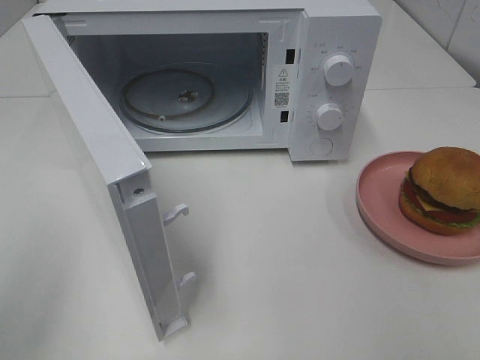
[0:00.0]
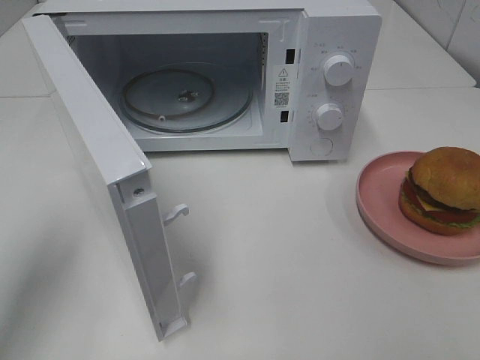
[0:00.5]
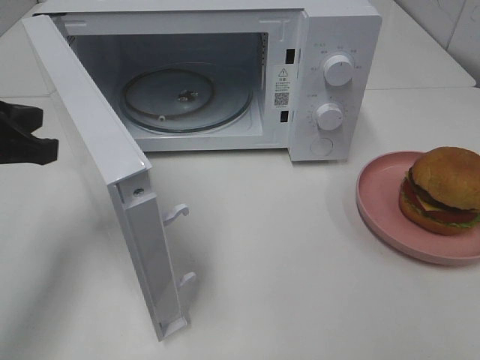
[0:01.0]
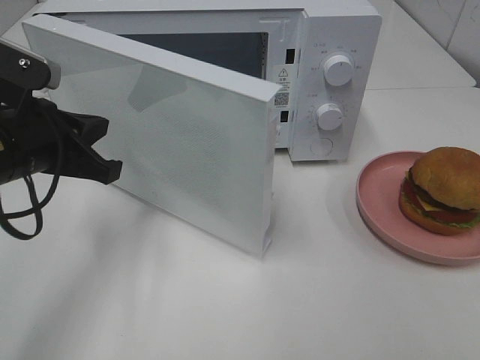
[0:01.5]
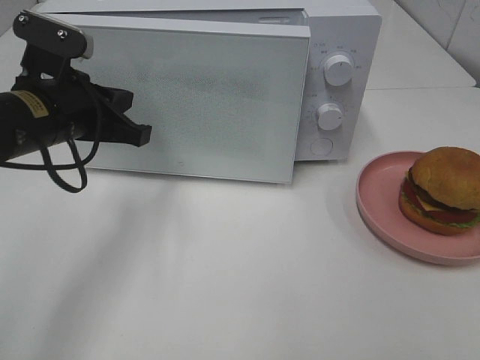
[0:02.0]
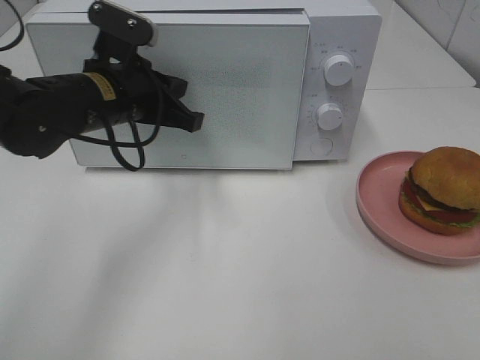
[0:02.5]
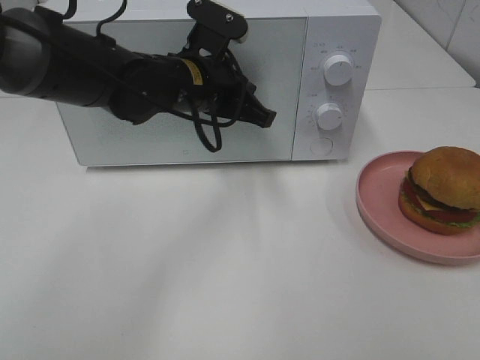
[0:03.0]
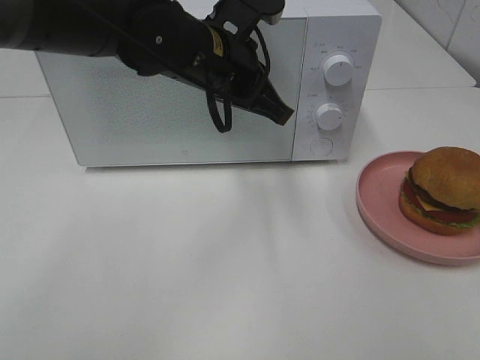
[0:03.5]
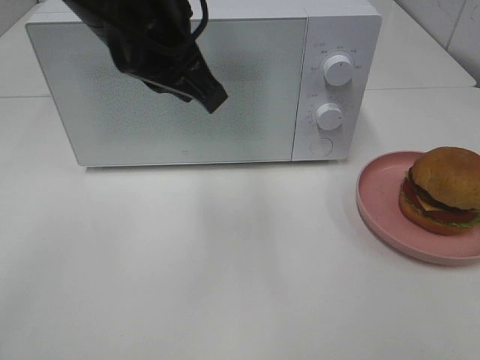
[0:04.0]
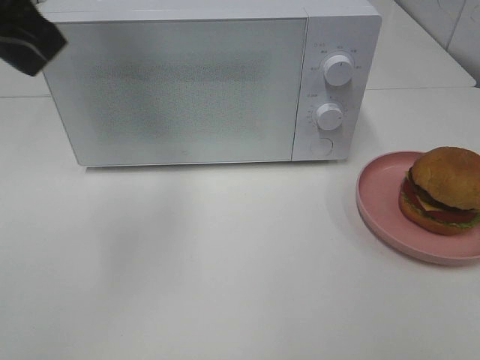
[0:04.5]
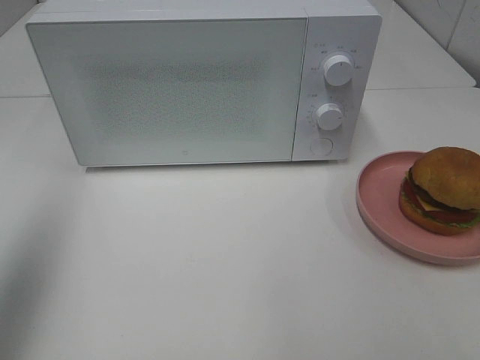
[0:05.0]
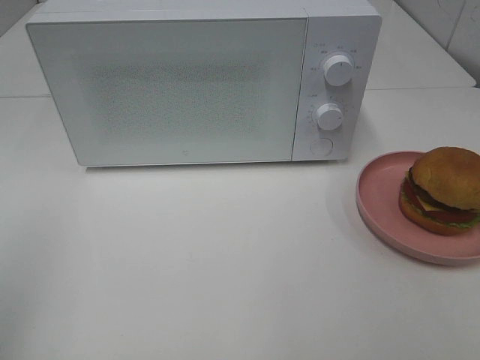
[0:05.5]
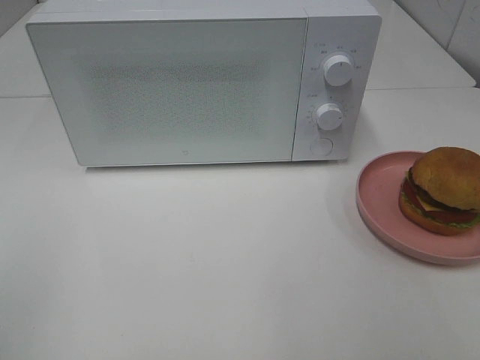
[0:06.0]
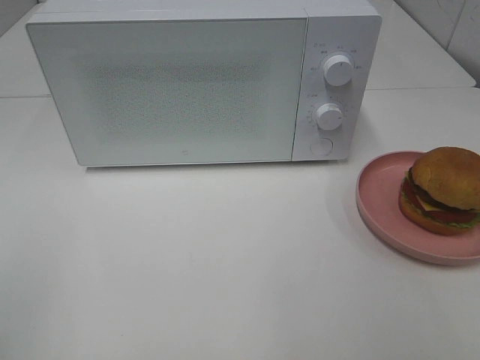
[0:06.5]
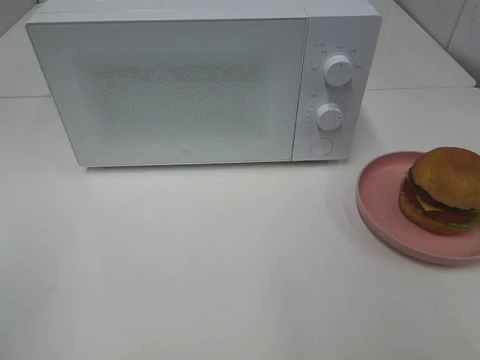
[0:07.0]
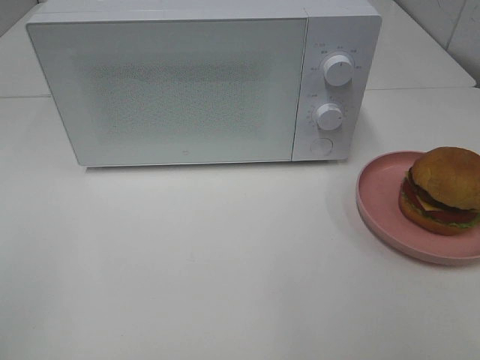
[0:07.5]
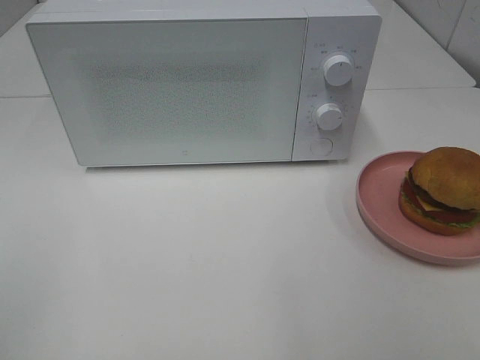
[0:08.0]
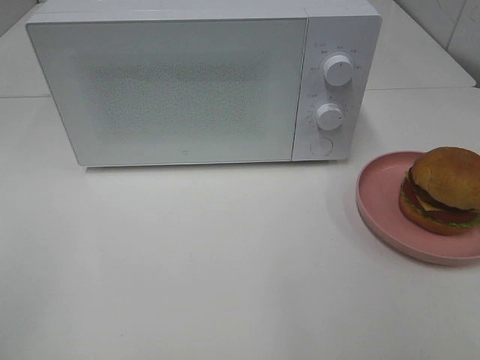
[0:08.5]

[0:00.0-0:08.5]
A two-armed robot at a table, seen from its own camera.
Task of the whole recording: Heat the burger.
Step, 0:00.0 to 0:03.0: Left hand: close the microwave door.
0:00.0 to 0:02.0: The left gripper travels forward, to the right and downward by roughly 30 cm.
0:02.0 to 0:04.0: The left gripper moves upward and to the right, roughly 15 cm.
0:04.0 to 0:06.5: The left gripper travels backward and to the left by about 35 cm.

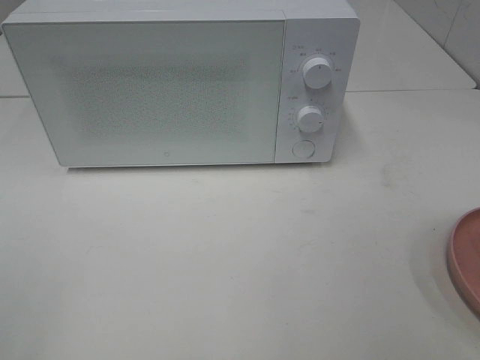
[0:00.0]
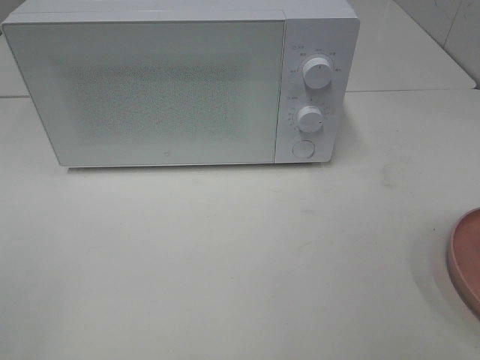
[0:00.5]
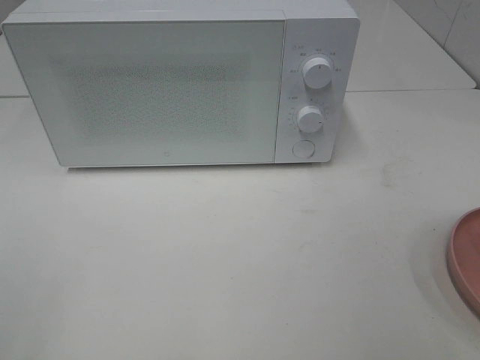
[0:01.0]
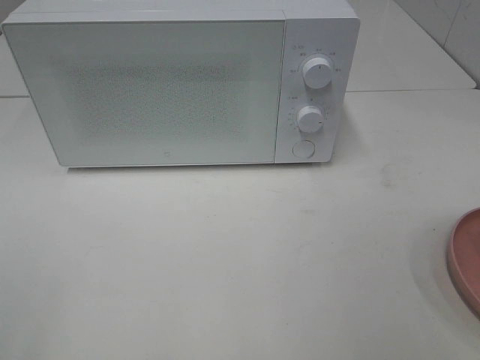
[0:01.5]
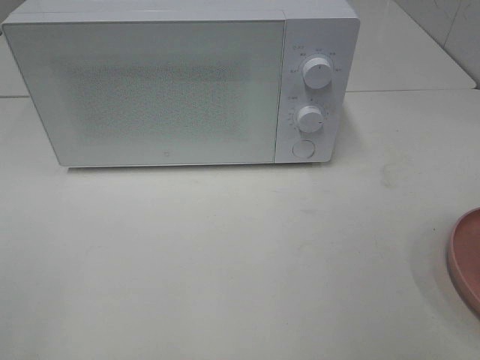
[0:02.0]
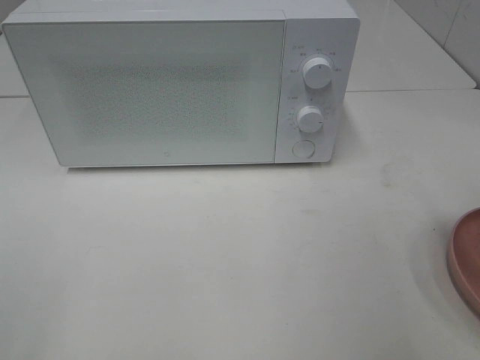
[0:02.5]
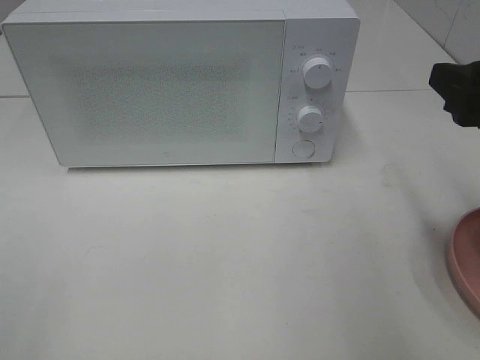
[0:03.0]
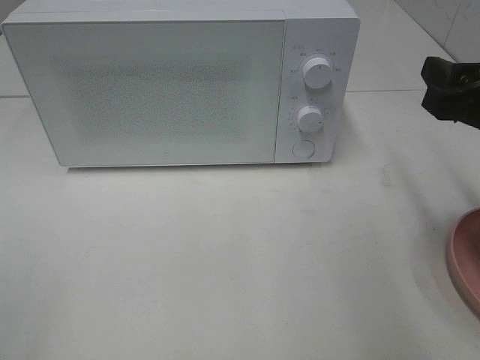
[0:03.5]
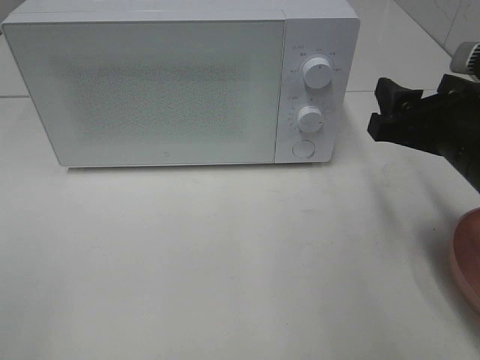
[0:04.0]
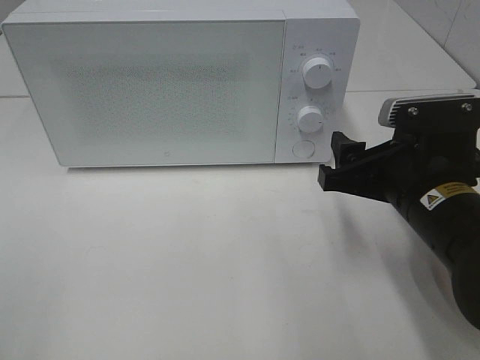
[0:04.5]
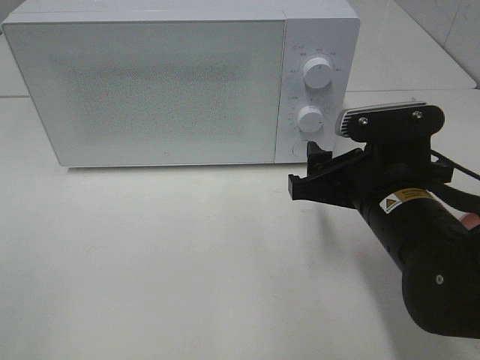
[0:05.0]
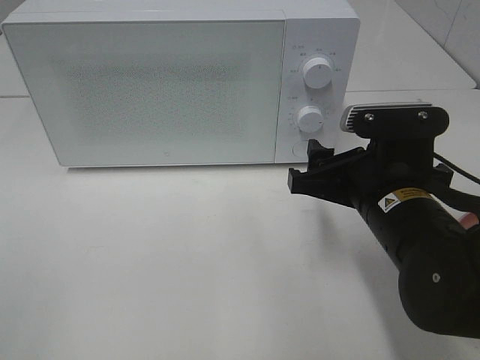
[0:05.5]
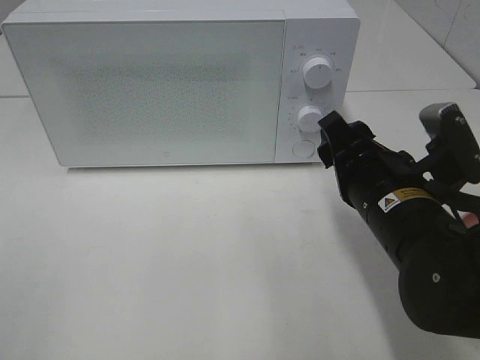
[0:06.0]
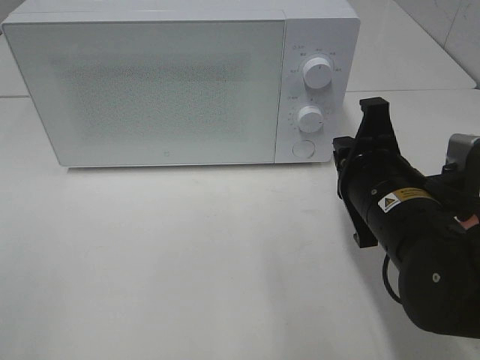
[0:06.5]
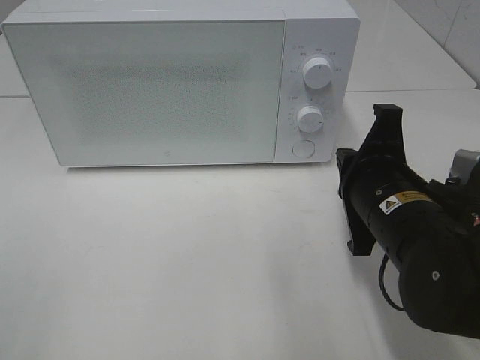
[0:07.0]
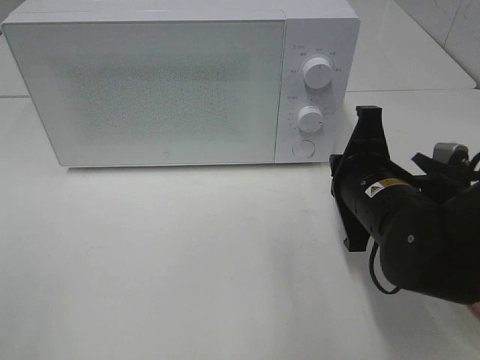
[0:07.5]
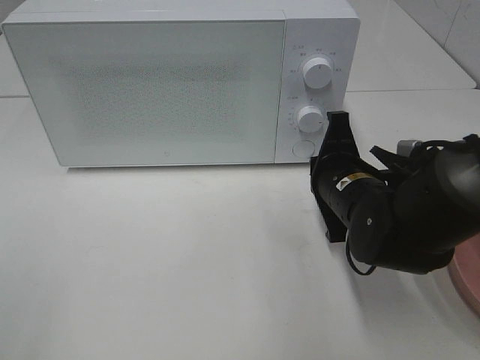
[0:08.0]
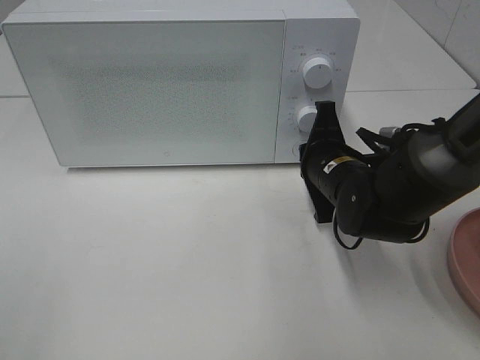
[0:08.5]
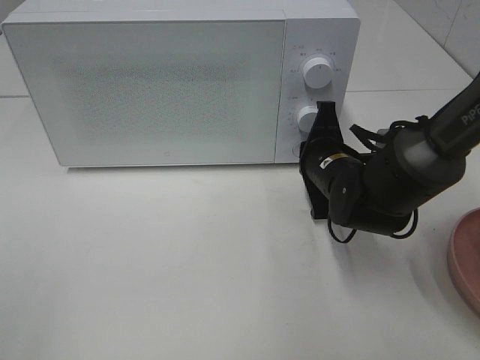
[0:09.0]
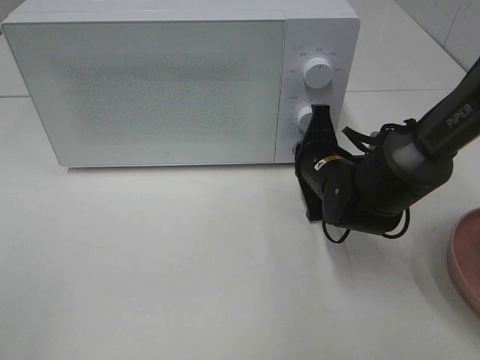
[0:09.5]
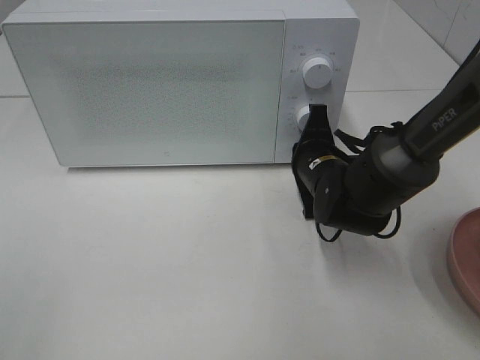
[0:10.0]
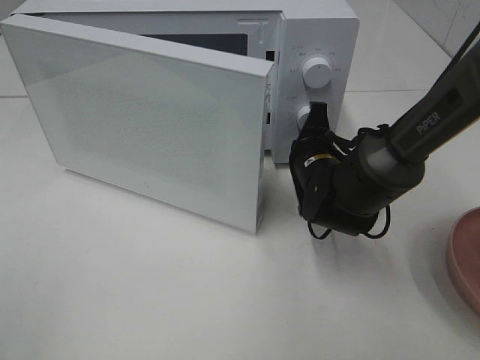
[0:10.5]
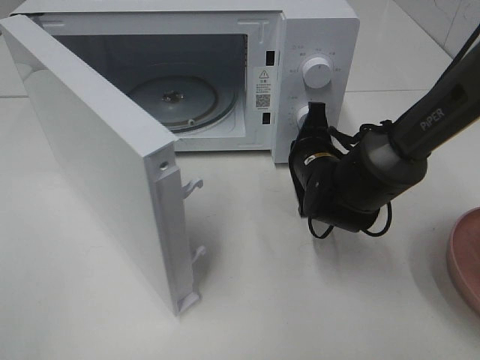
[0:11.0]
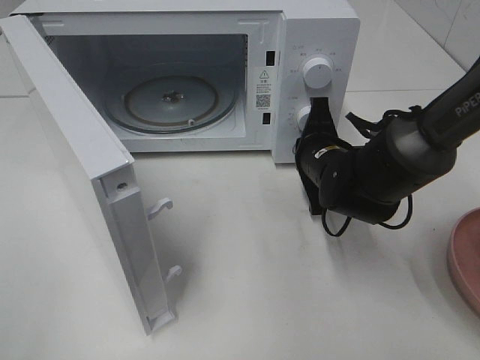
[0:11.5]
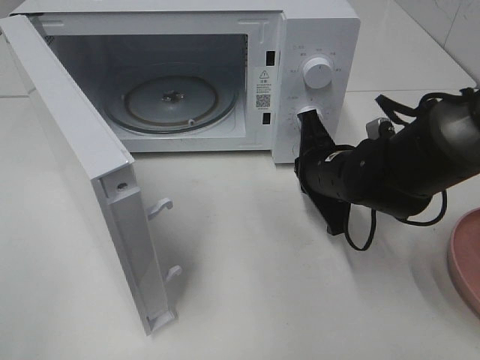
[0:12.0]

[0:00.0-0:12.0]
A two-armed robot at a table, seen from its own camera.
Task of the whole recording: Heat the burger.
0:02.0 to 0:04.0: The right gripper shifts roughly 20 cm forward, downward and to the left.
0:04.0 to 0:06.0: The right gripper shifts approximately 5 cm to the left.
0:06.0 to 0:08.0: The right gripper is displaced forward by approximately 5 cm, and closes its fingers.
0:08.0 to 0:10.0: The right gripper is displaced forward by some 5 cm.

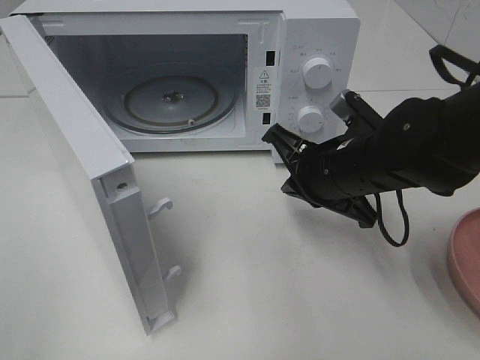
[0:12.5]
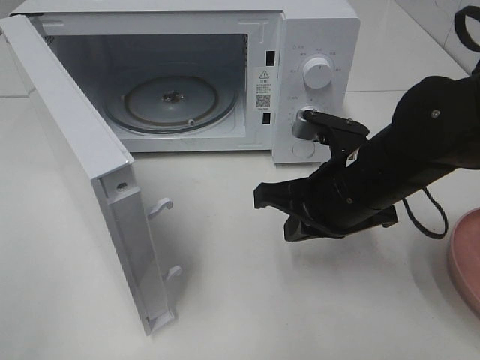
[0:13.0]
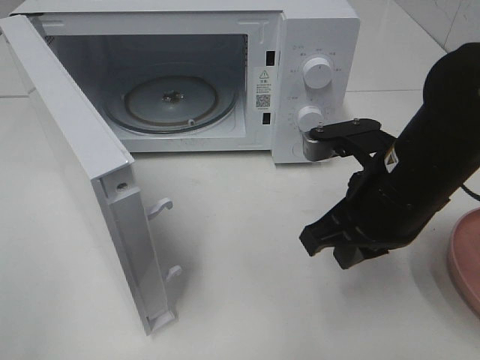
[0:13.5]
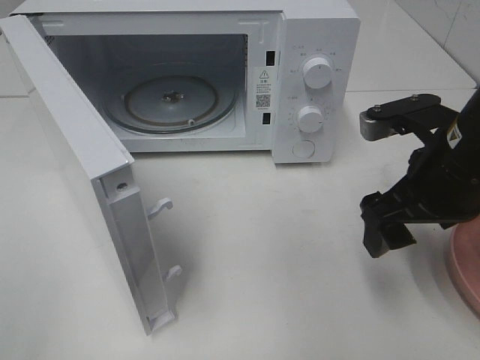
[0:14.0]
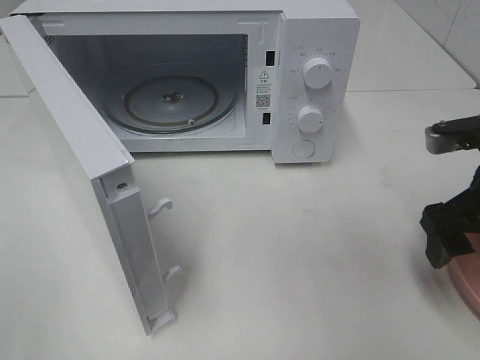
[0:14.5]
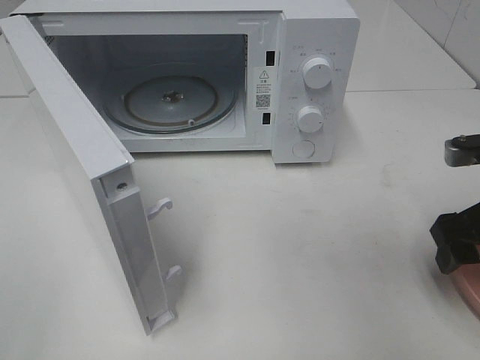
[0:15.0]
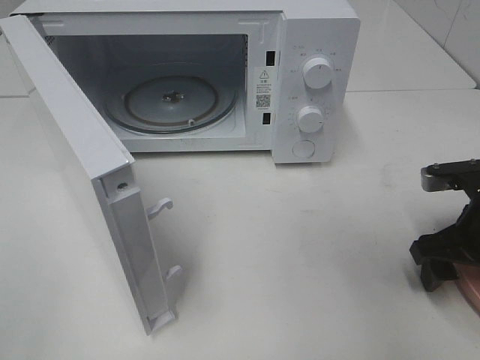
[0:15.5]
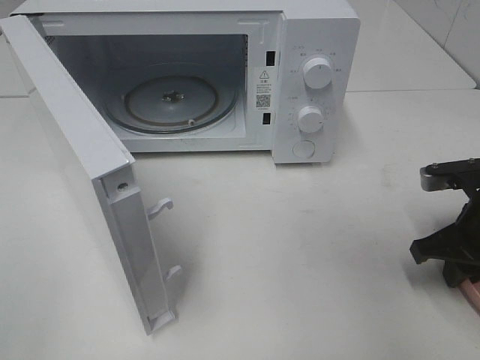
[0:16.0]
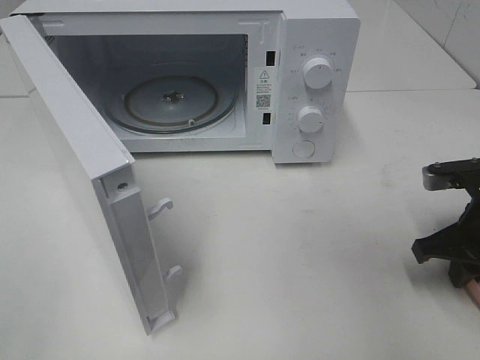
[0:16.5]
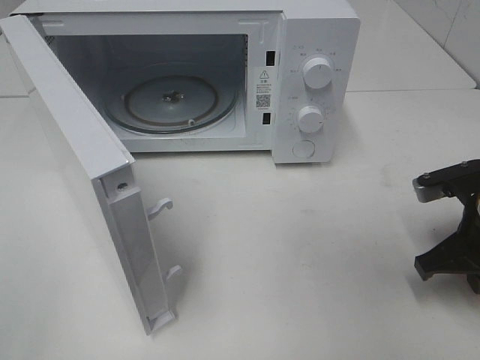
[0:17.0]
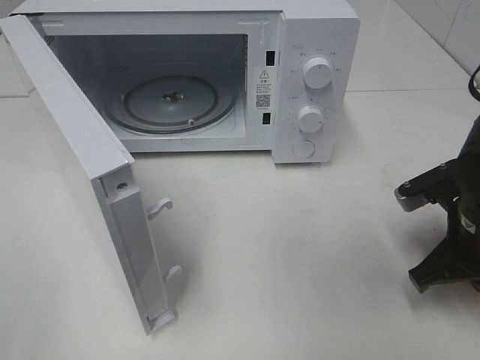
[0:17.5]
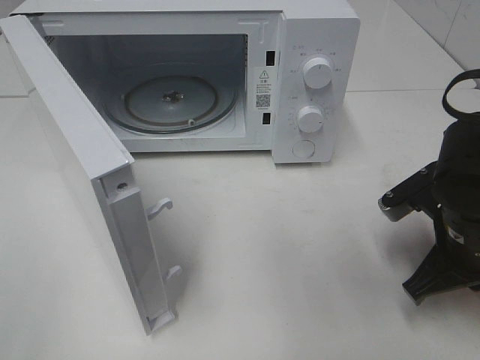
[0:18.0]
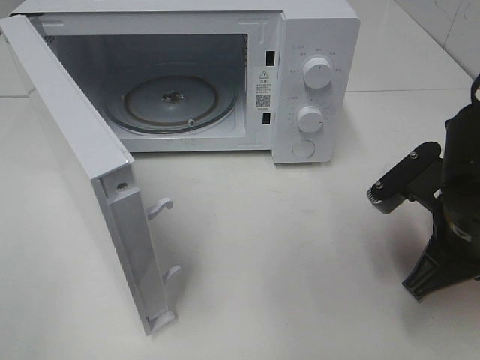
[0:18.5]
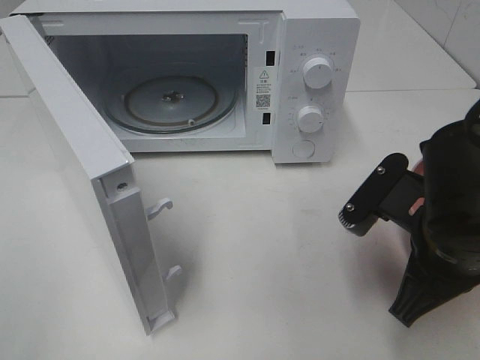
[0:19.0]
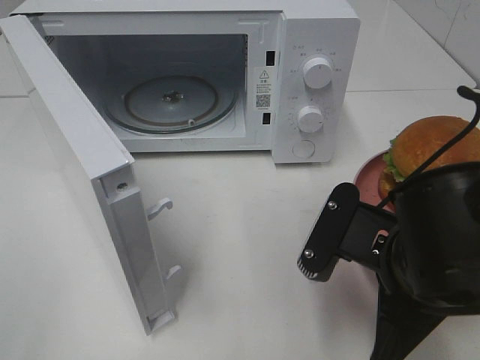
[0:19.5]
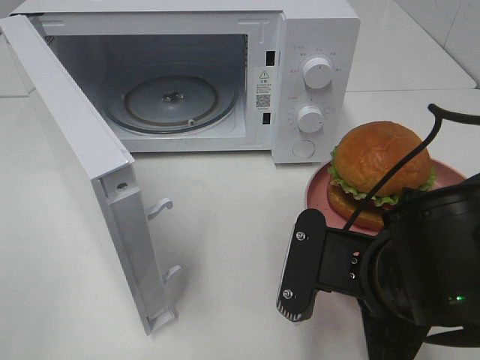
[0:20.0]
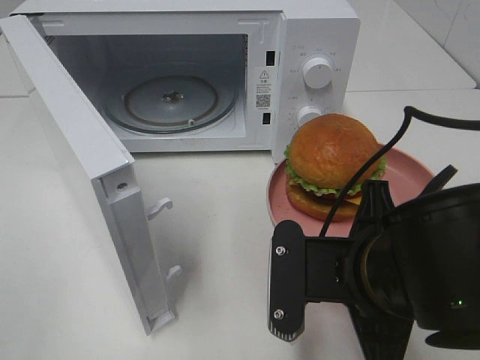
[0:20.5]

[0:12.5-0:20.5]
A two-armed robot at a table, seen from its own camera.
Task of the whole recording: Heat the burger.
Step, 0:12.5 to 0:17.0: Right hand: grab the plate with the hamburger.
0:12.5 to 0:14.5: The right gripper heads to the right, covering some 15 cm, and opens.
0:14.5 to 0:16.5: The right gripper travels downward by about 5 cm, and closes its fingers.
0:16.5 to 0:18.5: The right gripper heads to the left, covering approximately 10 cm.
0:18.5 to 0:20.5: The right gripper heads to the left and backward, covering approximately 10 cm.
